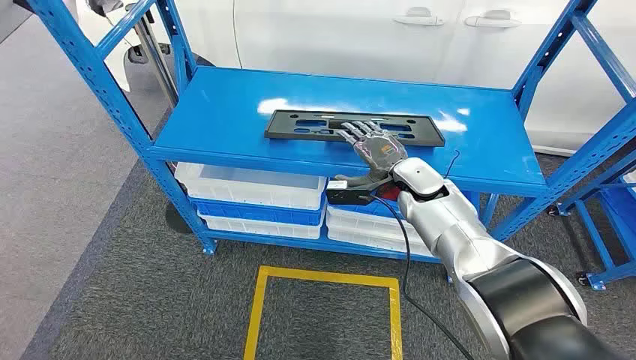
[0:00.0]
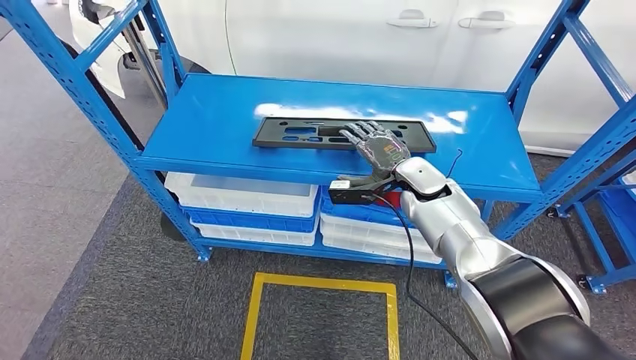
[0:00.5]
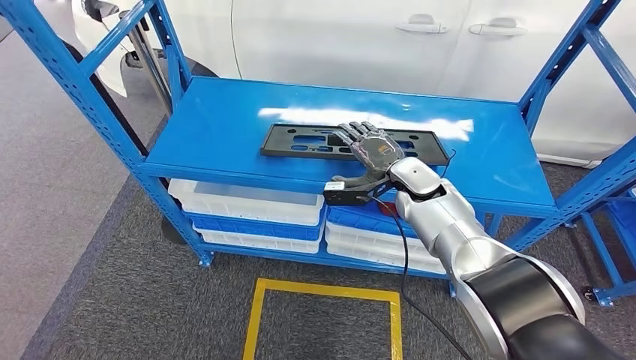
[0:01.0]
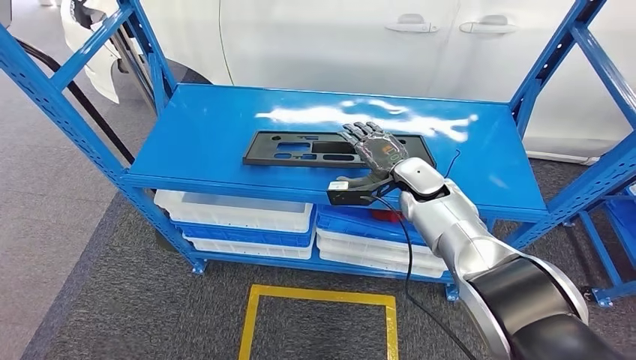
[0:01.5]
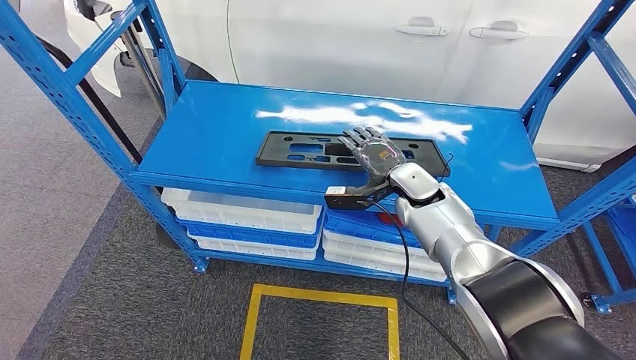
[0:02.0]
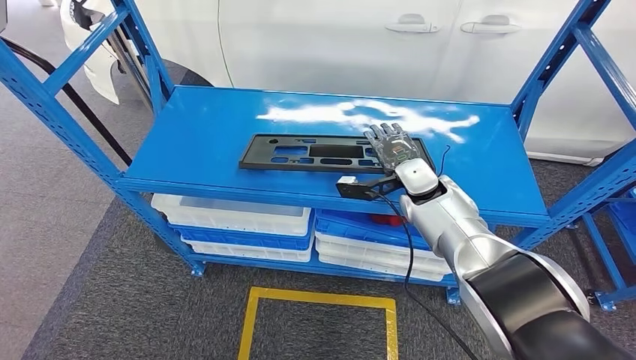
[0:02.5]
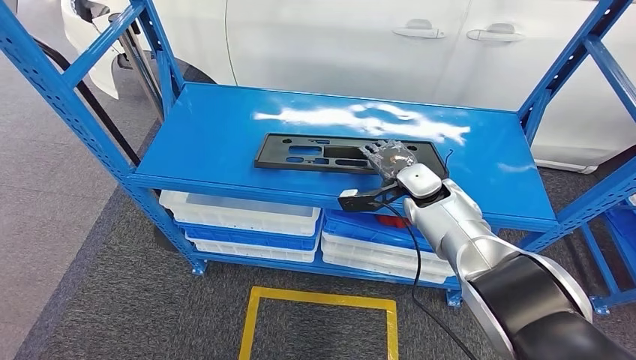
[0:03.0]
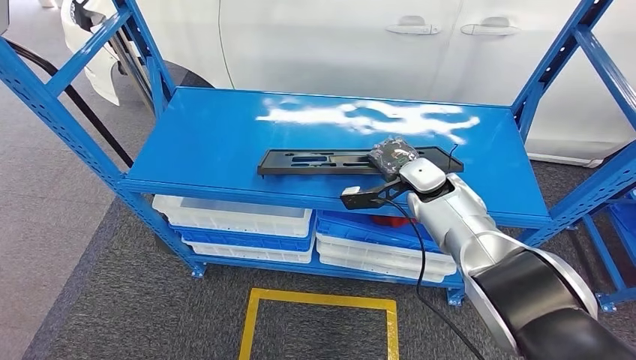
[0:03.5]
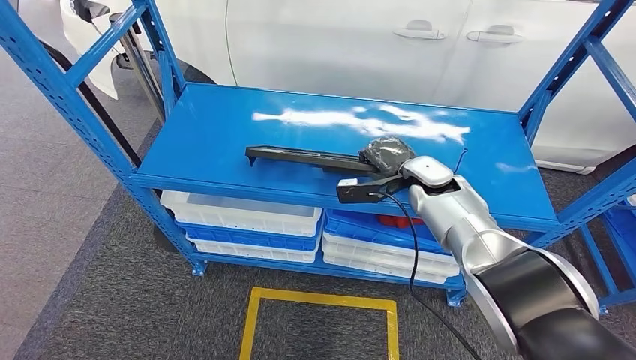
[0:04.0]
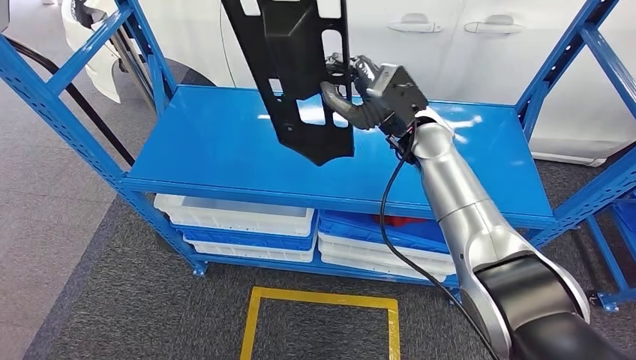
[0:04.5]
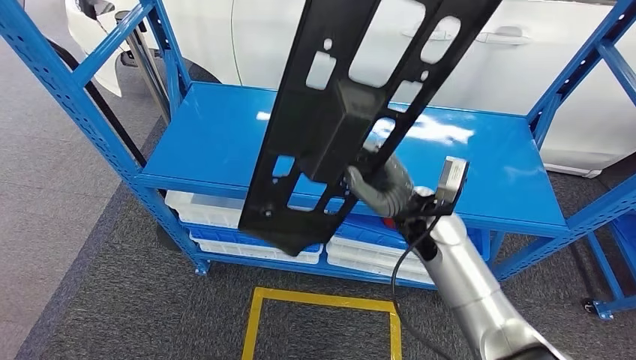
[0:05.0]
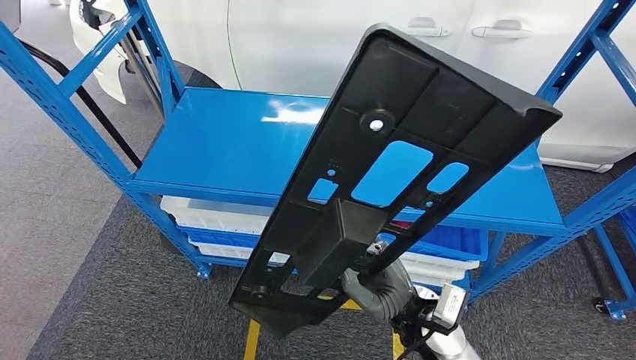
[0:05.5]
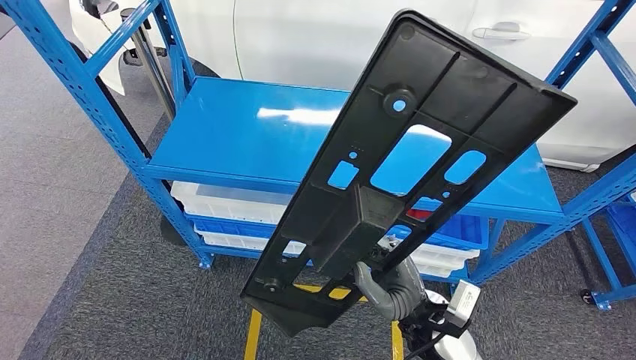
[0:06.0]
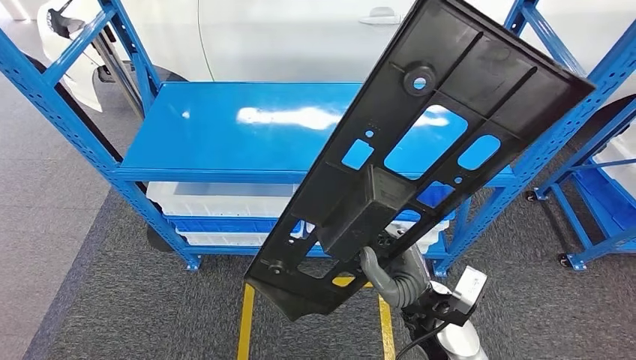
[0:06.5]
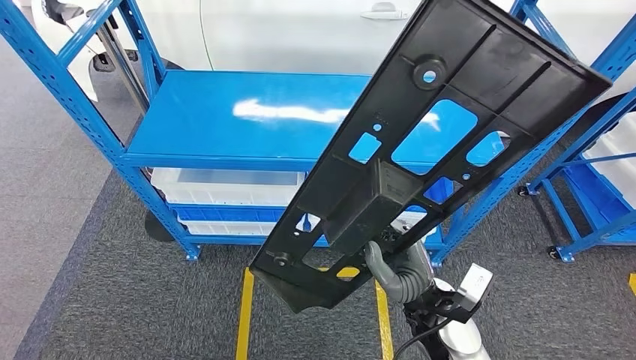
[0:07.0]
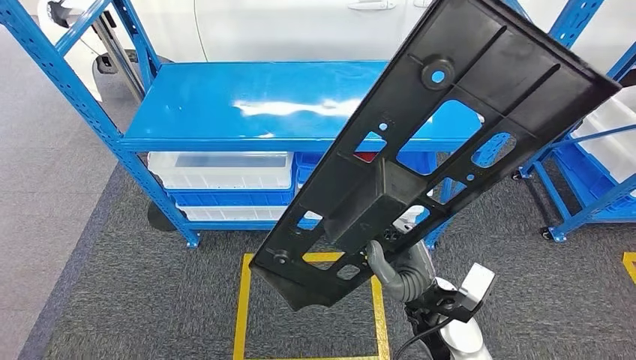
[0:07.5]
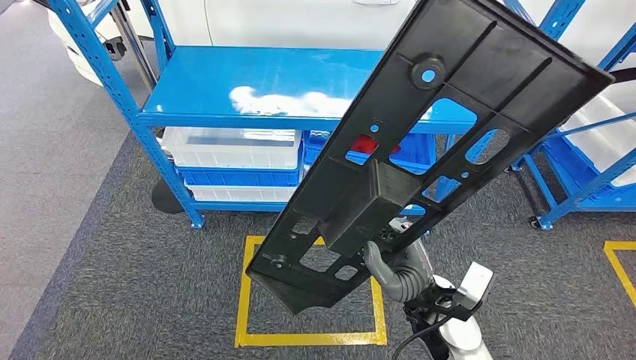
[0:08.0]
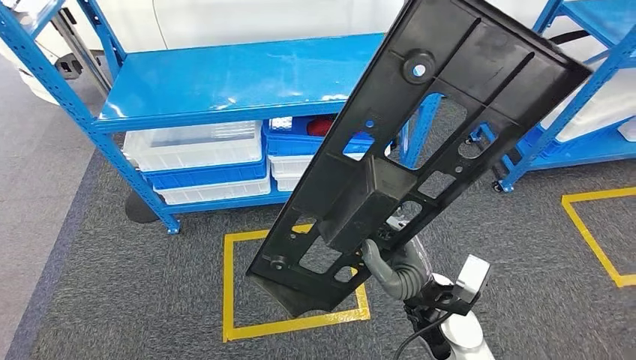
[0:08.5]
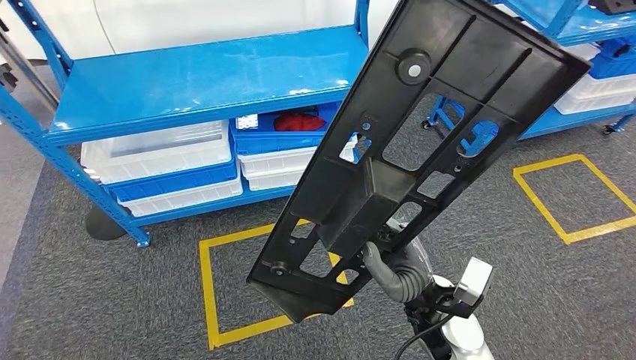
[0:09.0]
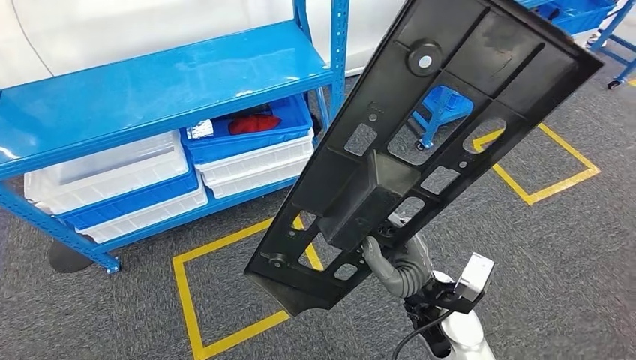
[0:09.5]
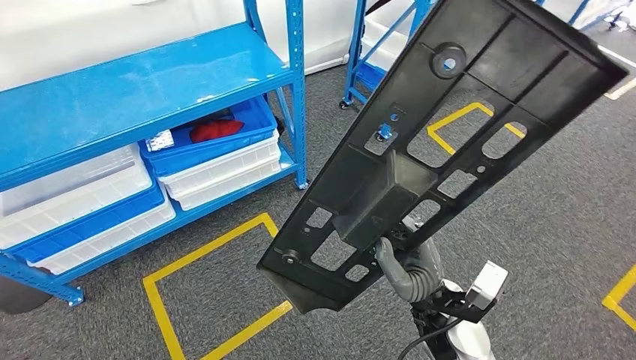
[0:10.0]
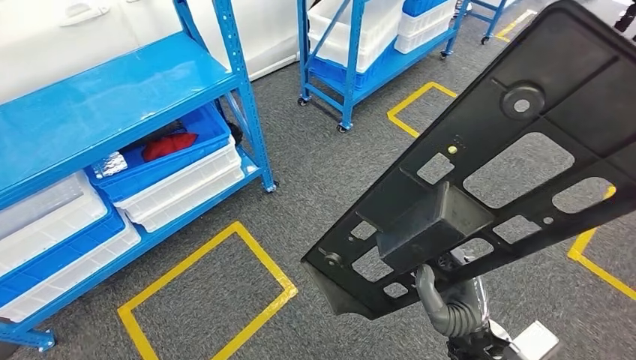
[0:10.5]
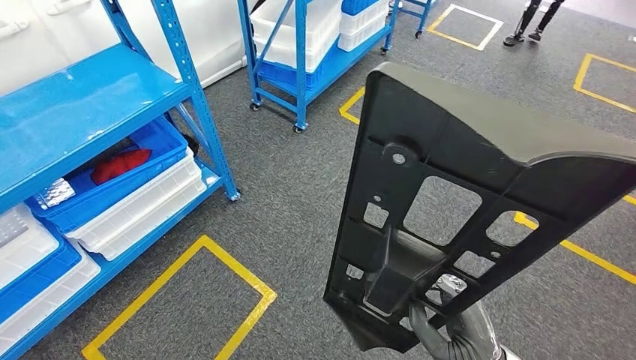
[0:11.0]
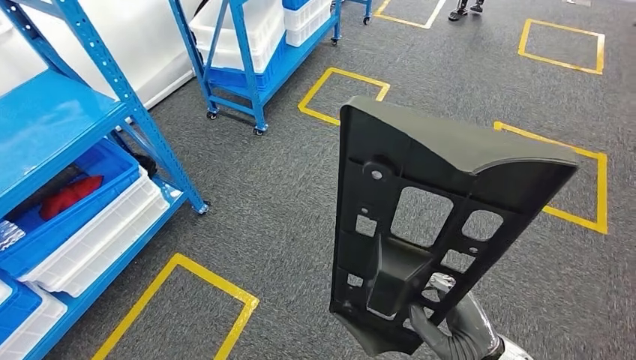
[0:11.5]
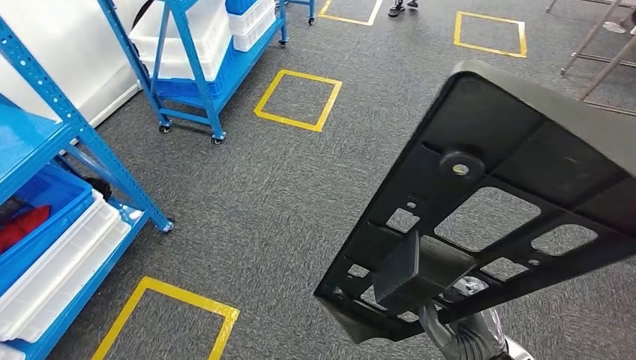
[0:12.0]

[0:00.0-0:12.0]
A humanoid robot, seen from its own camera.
Step, 0:00.0 to 0:05.5: Pick up the large material from the shelf.
0:02.0 to 0:04.0: The hands move only a little.

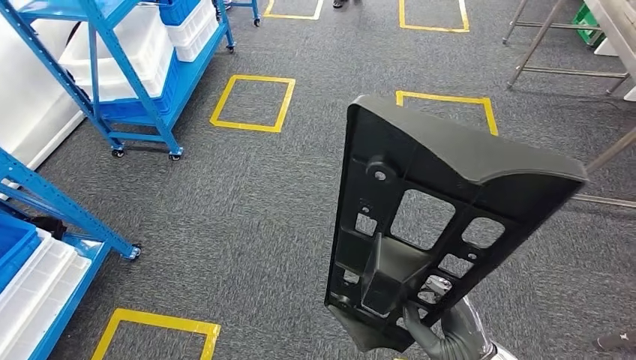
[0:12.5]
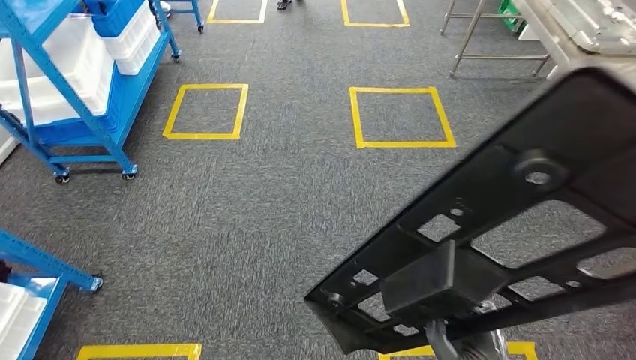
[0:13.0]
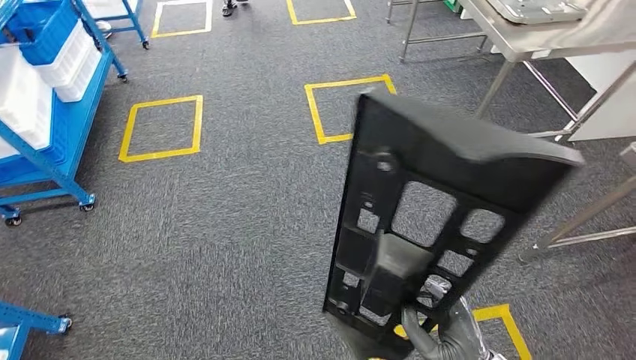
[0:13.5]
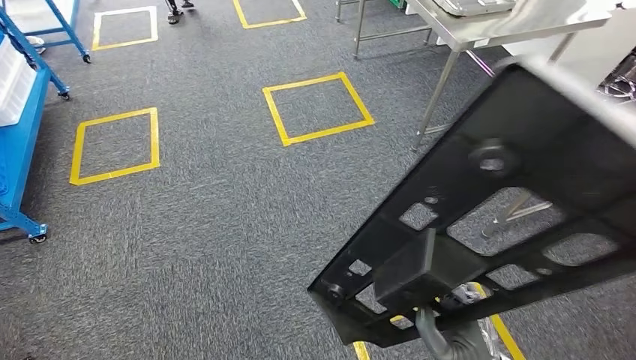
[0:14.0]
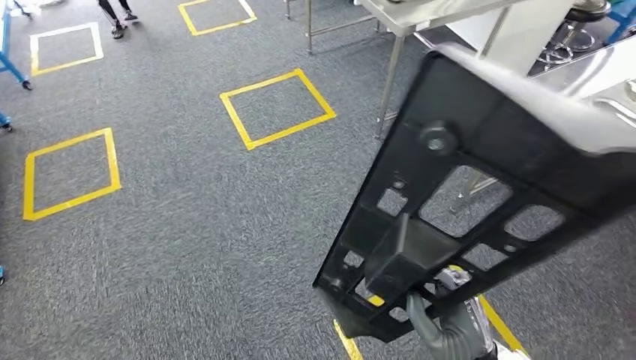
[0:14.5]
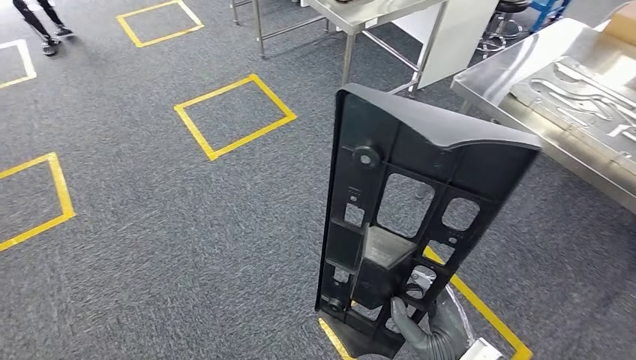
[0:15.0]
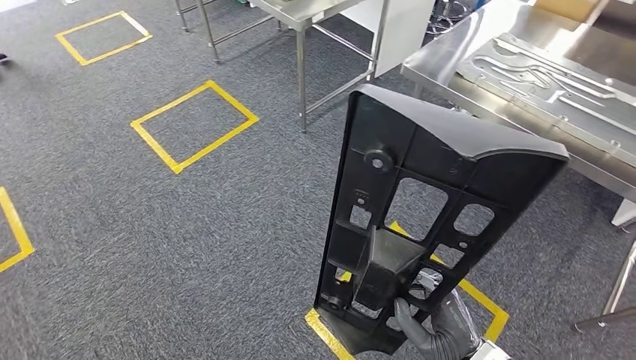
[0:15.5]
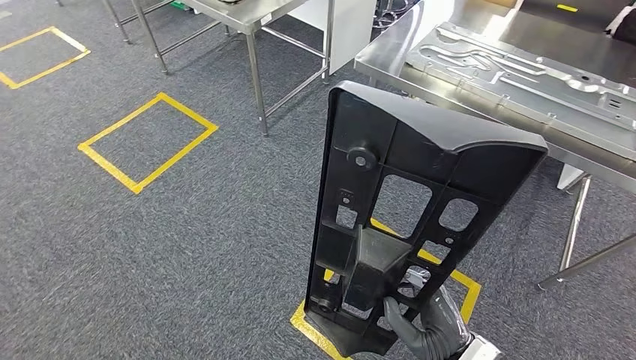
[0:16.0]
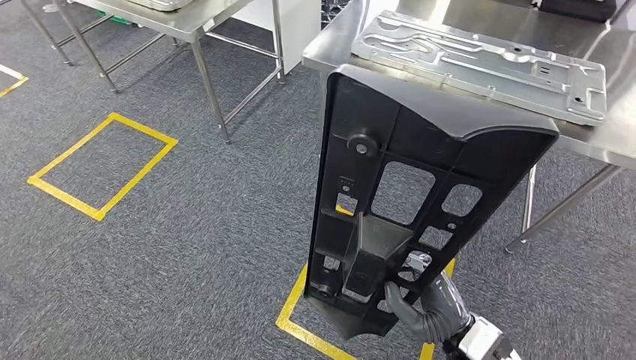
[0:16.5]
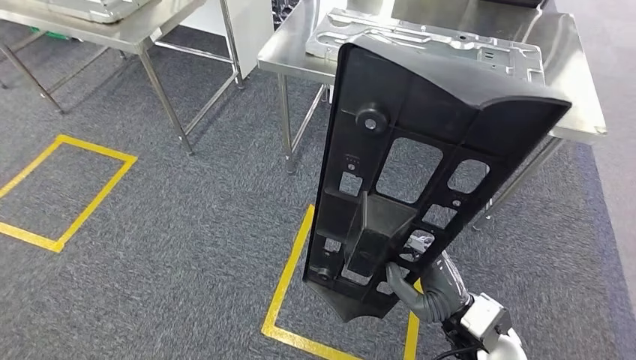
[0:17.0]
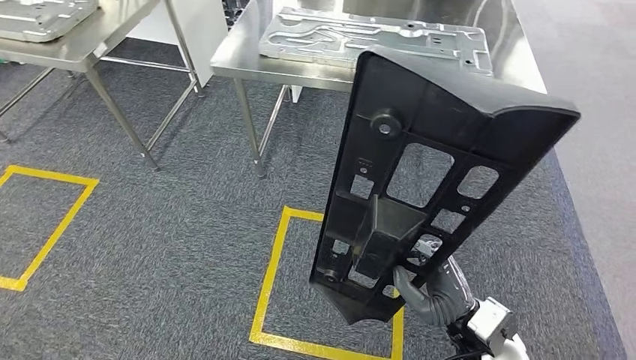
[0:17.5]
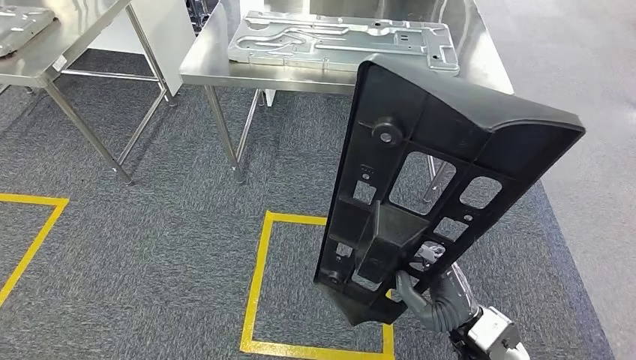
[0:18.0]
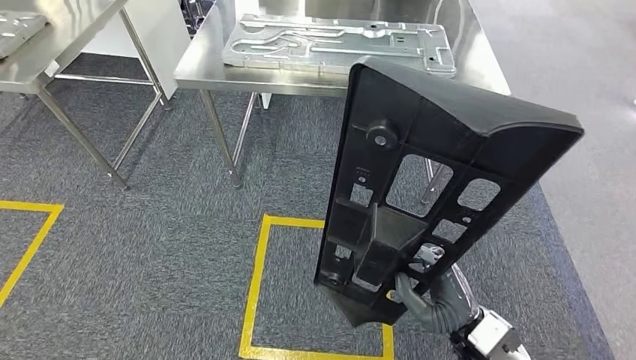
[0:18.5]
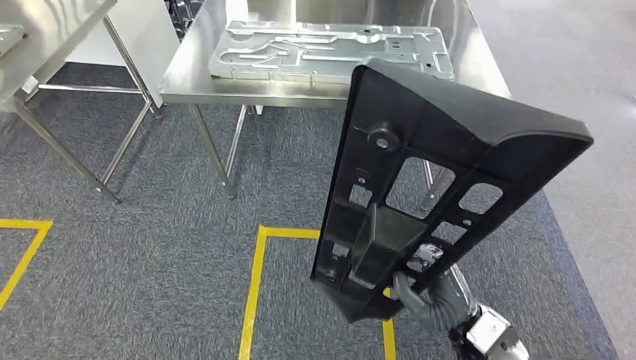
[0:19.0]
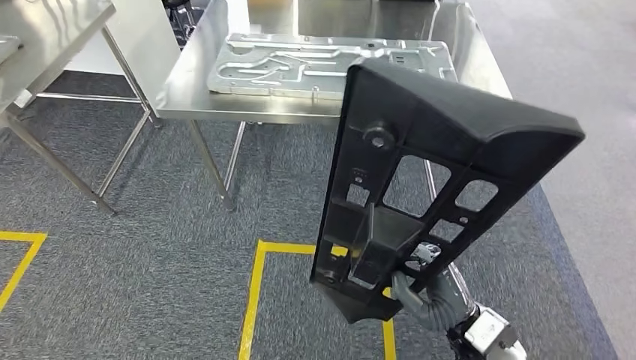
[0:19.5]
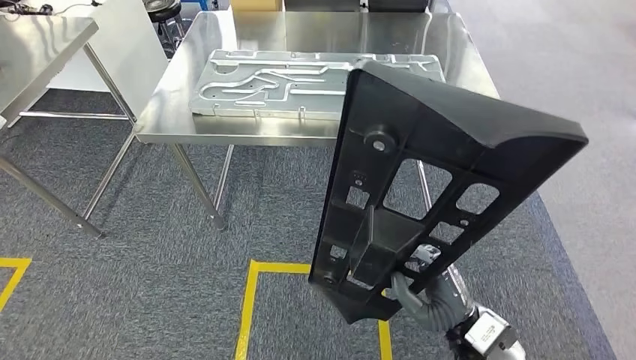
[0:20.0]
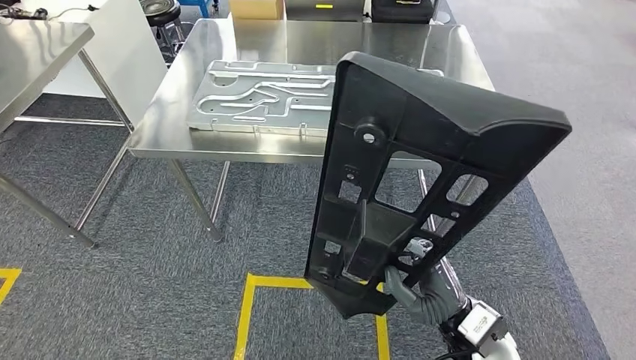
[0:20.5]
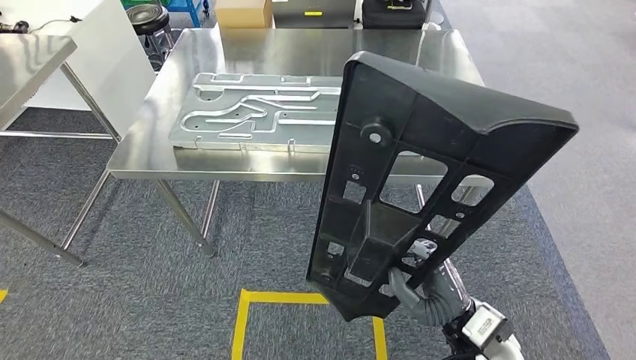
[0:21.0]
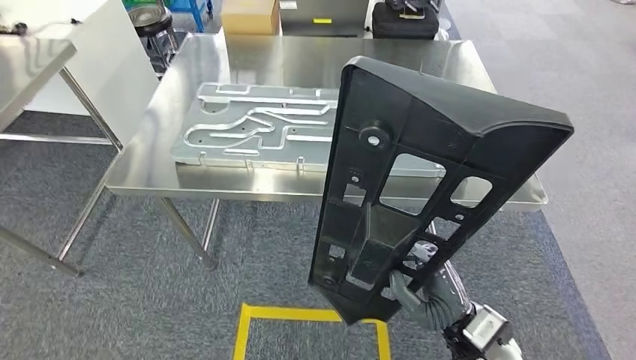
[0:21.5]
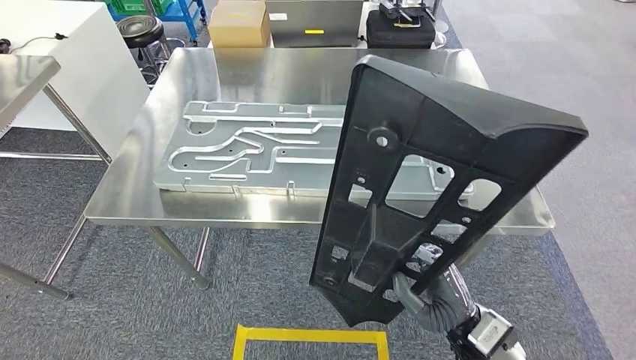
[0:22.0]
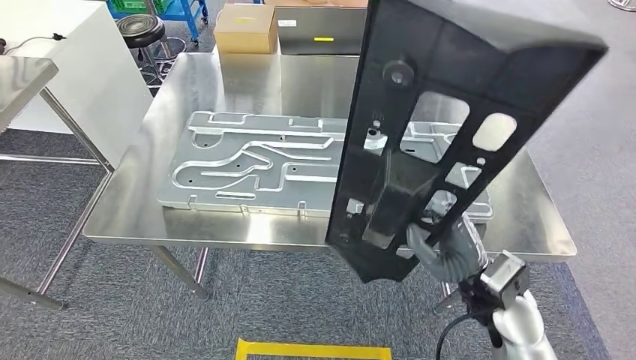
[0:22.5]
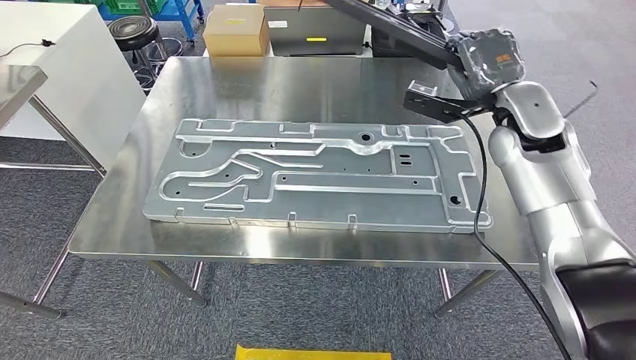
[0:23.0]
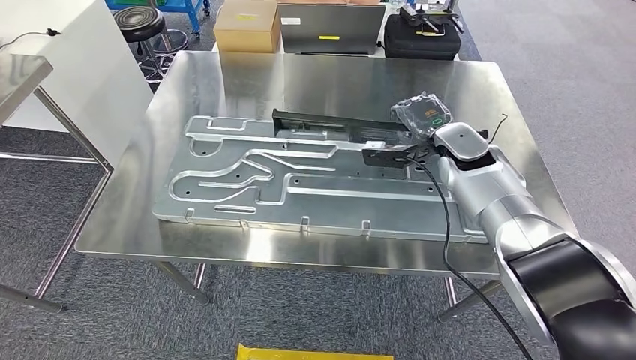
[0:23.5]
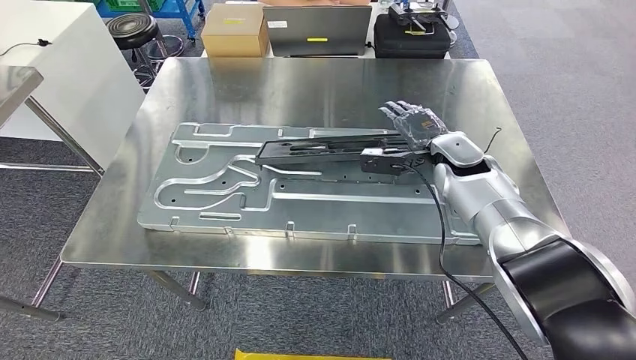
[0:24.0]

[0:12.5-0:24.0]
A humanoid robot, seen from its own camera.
Step, 0:12.5 to 0:22.5: Move the large material to the workbench.
